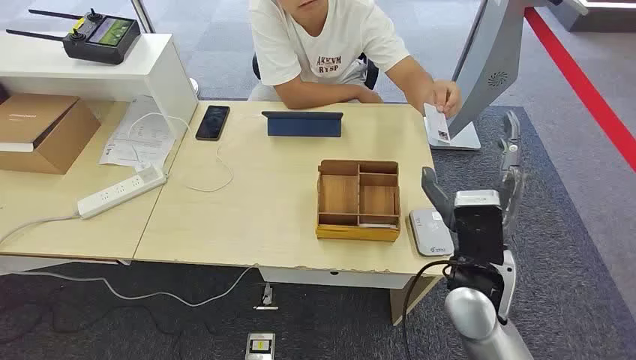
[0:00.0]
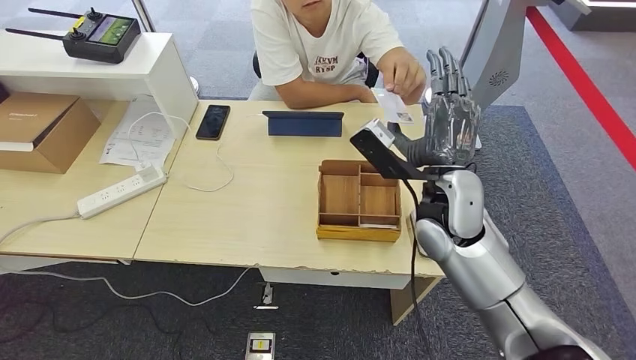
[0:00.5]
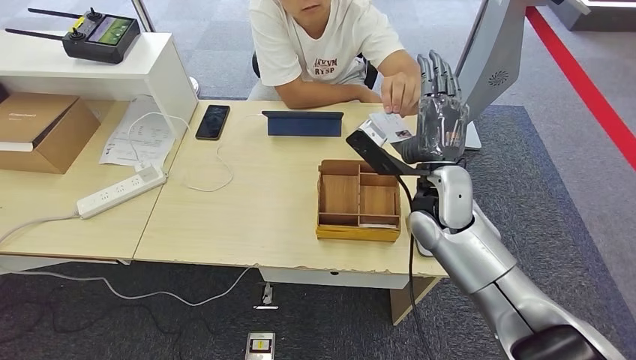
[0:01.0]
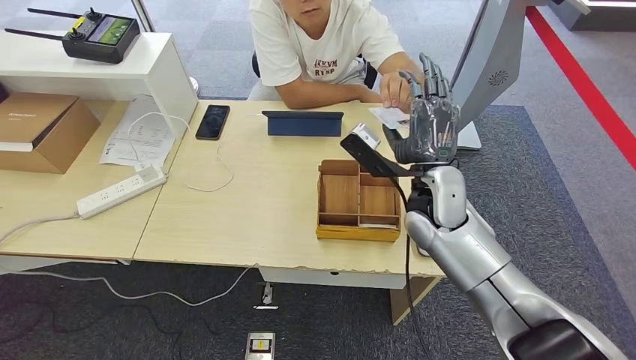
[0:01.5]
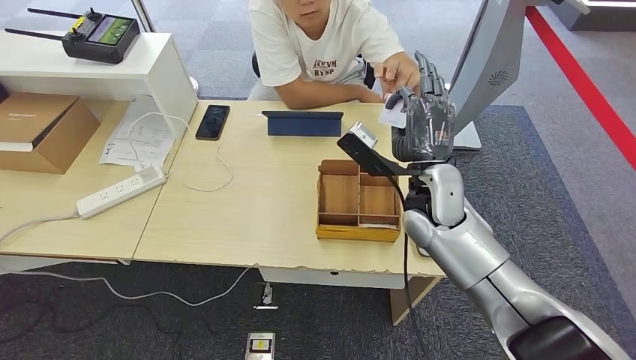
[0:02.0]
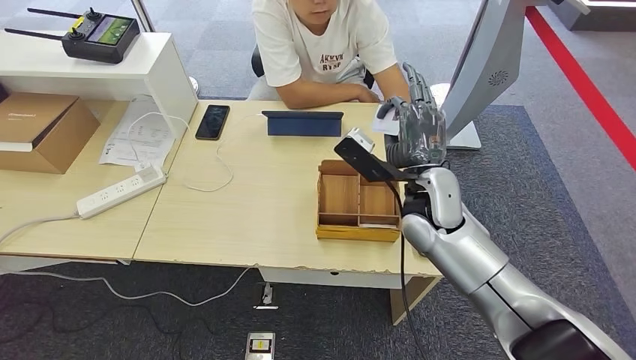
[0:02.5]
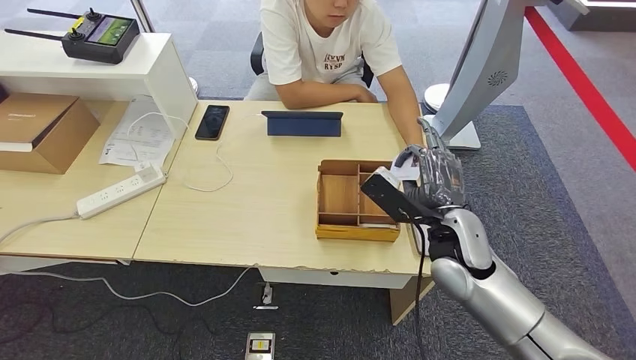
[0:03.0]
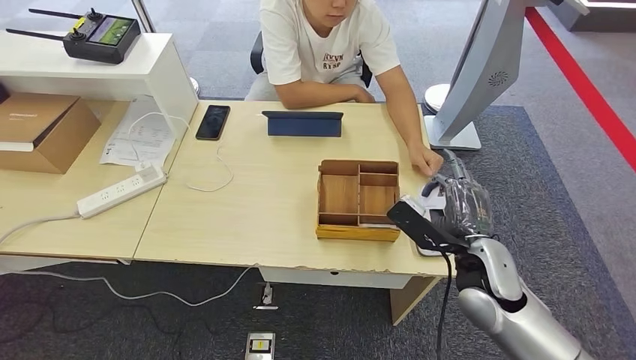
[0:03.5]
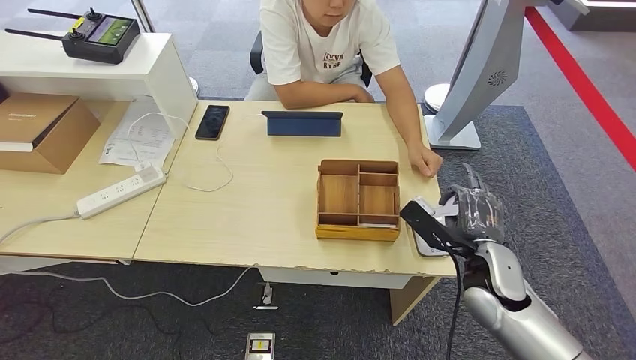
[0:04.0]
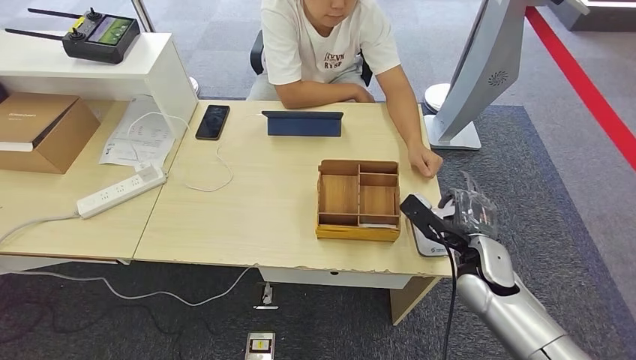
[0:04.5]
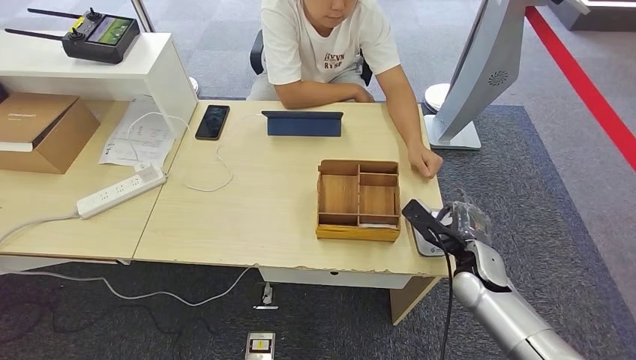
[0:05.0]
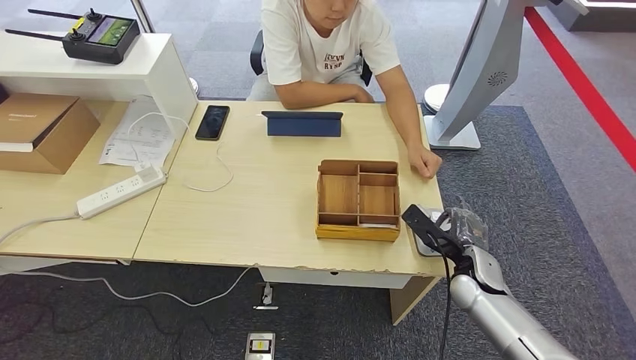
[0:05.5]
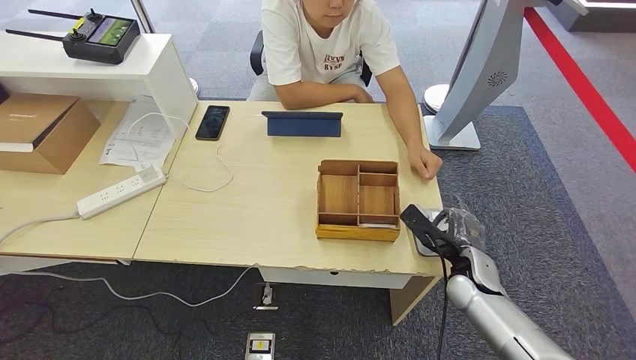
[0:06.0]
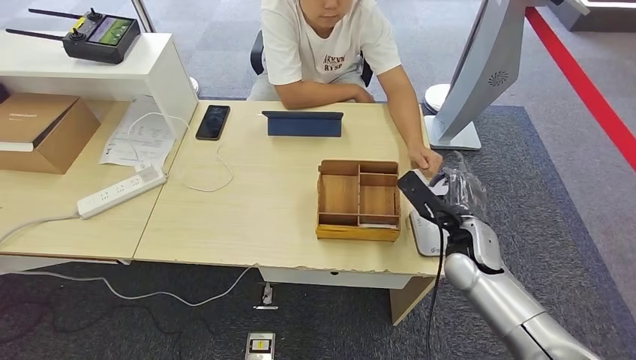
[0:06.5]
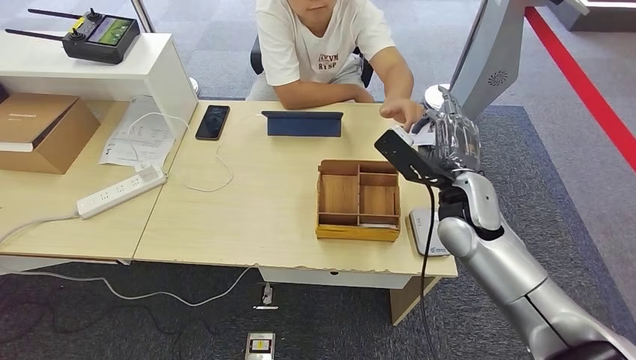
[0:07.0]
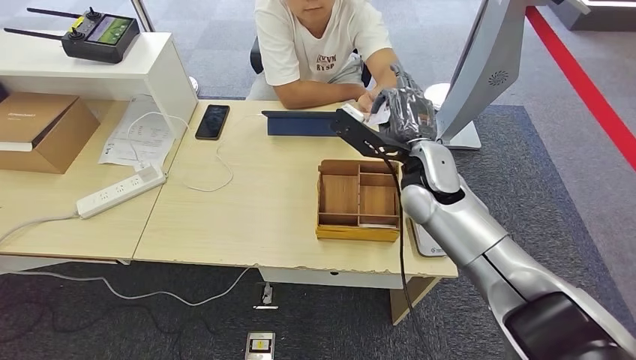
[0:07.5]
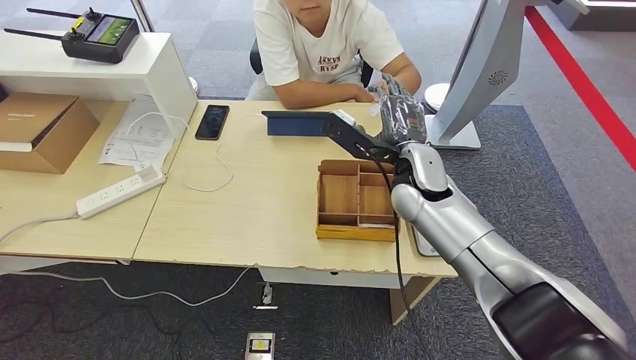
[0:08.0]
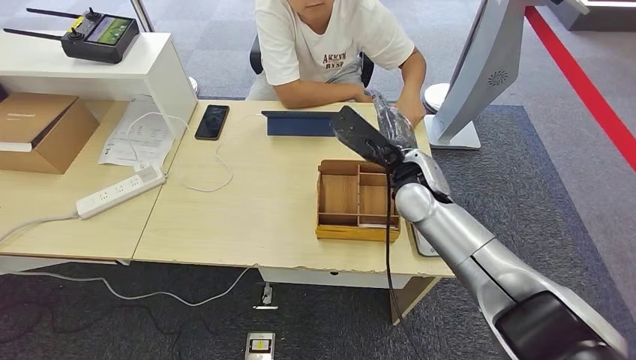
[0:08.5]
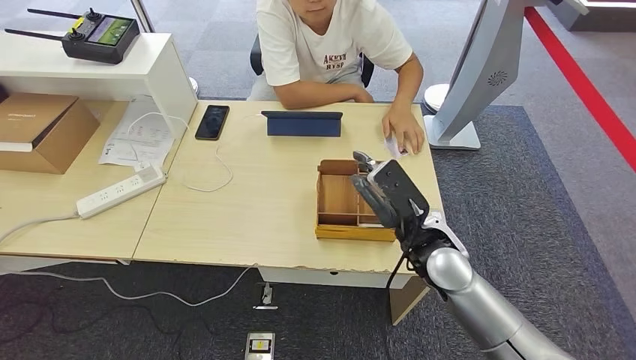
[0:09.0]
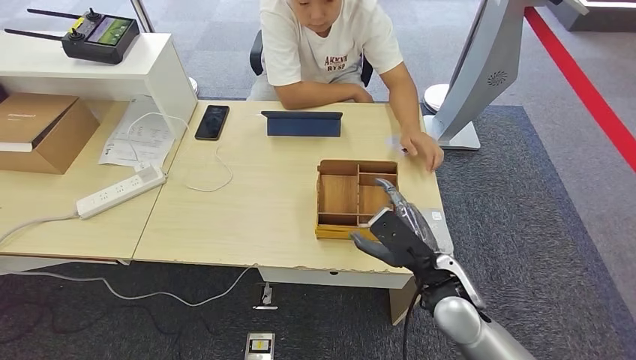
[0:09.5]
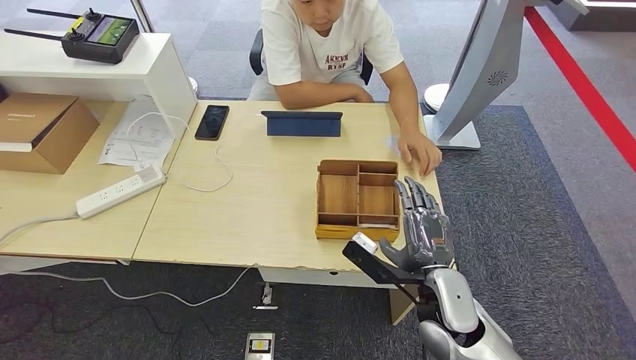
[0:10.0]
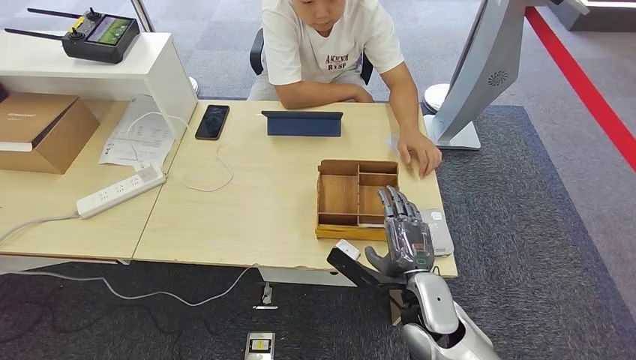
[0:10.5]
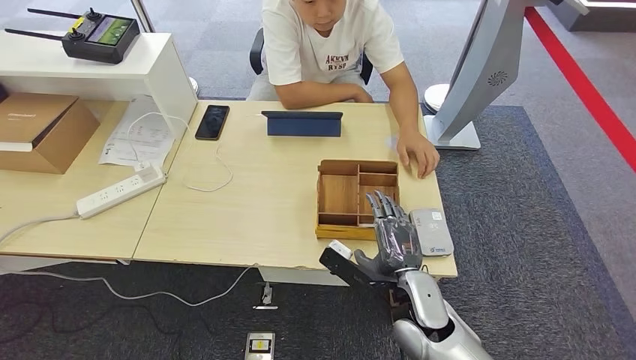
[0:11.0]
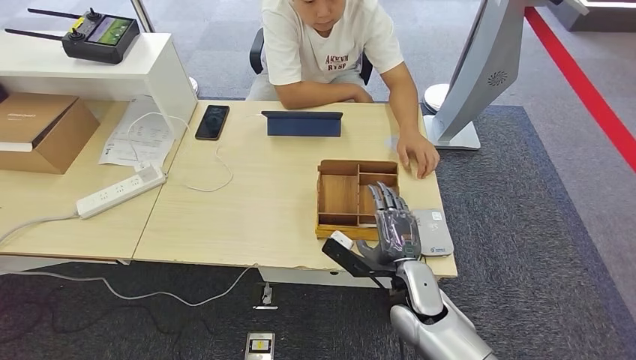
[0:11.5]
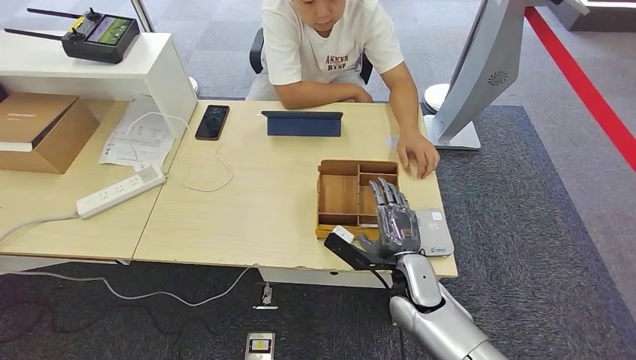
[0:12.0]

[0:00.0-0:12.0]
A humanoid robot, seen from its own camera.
Step, 0:00.0 to 0:02.5: Take the ID card from the person's hand.
Step, 0:03.0 to 0:06.5: Place the ID card on the card reader.
Step, 0:07.5 to 0:09.0: Hand the ID card to the person.
0:02.0 to 0:04.0: The right hand moves to the right, backward and downward, about 20 cm.
0:04.0 to 0:06.0: The right hand is displaced downward by roughly 10 cm.
0:06.0 to 0:08.0: The right hand moves upward, to the left and forward, about 25 cm.
0:08.0 to 0:10.0: The right hand goes approximately 20 cm backward and downward.
0:10.0 to 0:12.0: The right hand shifts by roughly 5 cm.

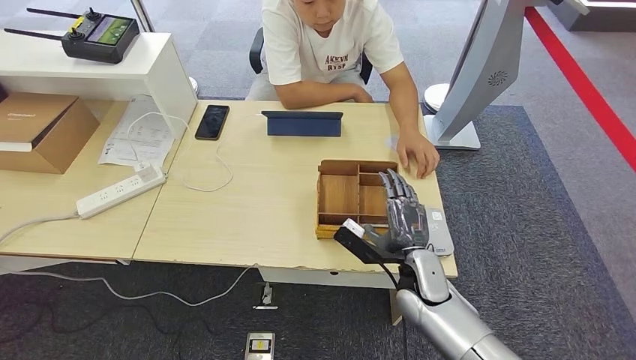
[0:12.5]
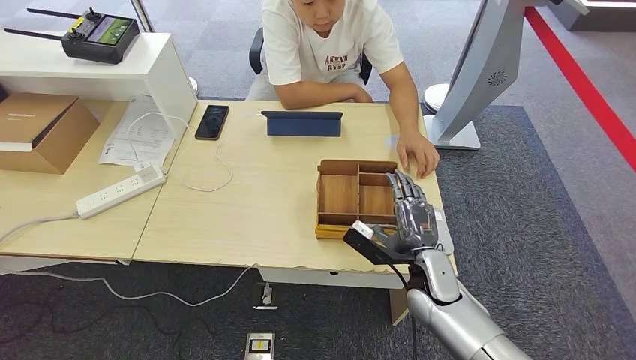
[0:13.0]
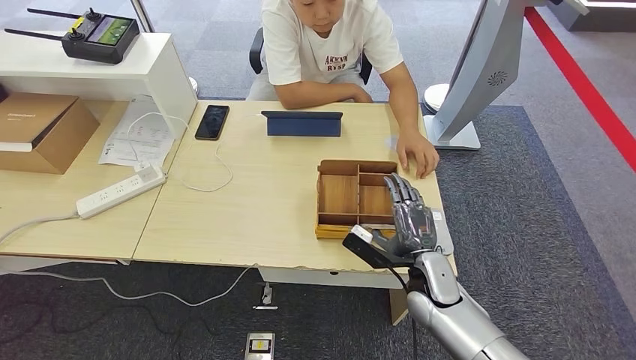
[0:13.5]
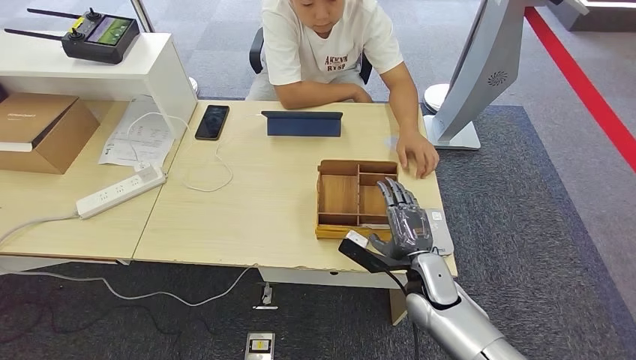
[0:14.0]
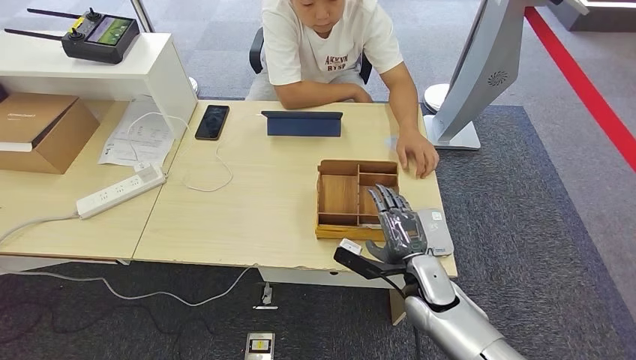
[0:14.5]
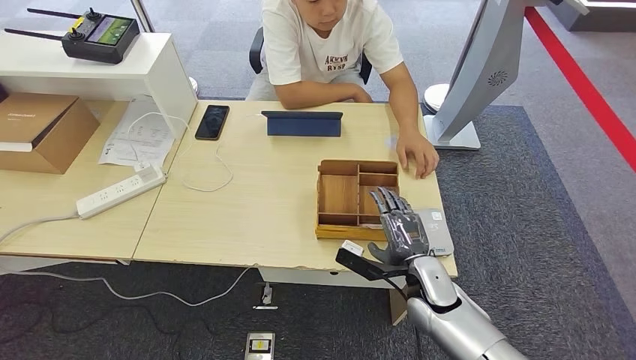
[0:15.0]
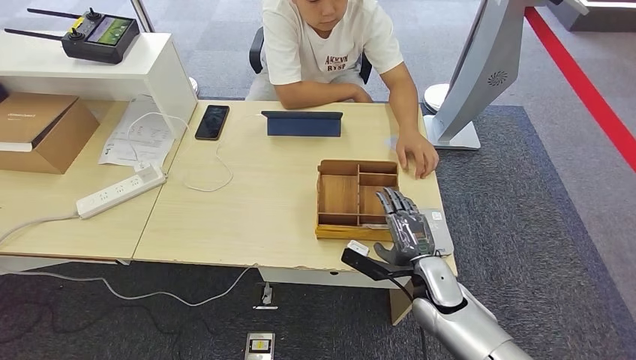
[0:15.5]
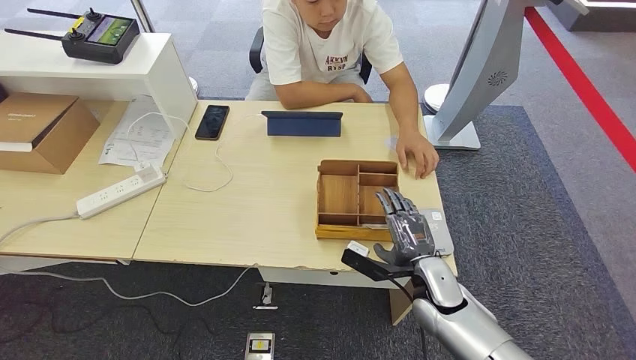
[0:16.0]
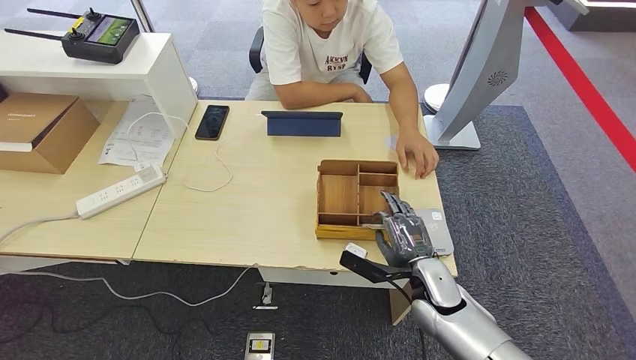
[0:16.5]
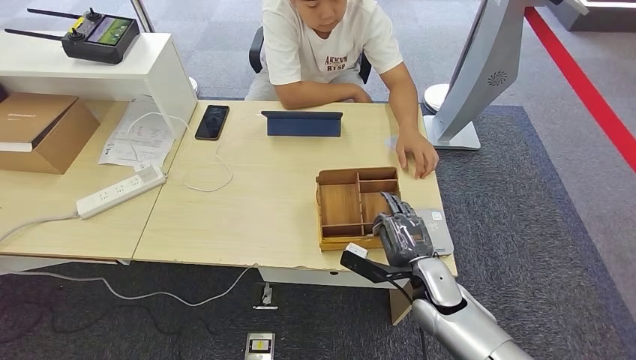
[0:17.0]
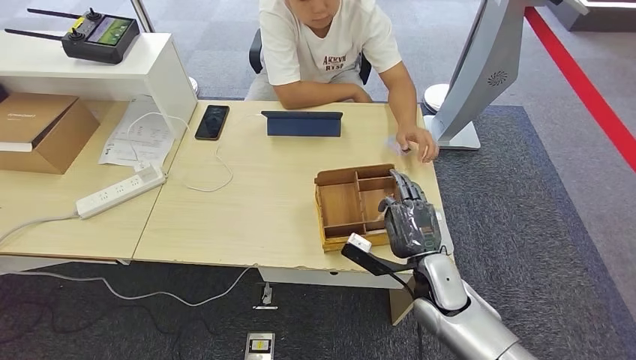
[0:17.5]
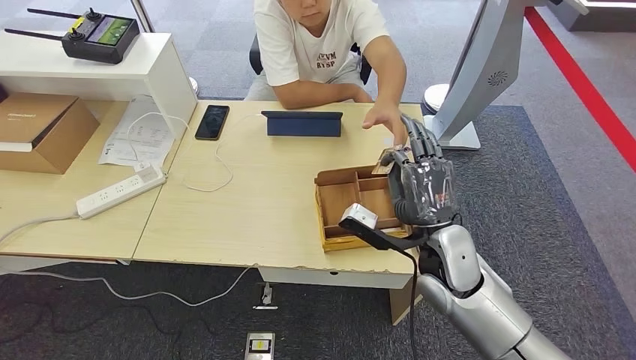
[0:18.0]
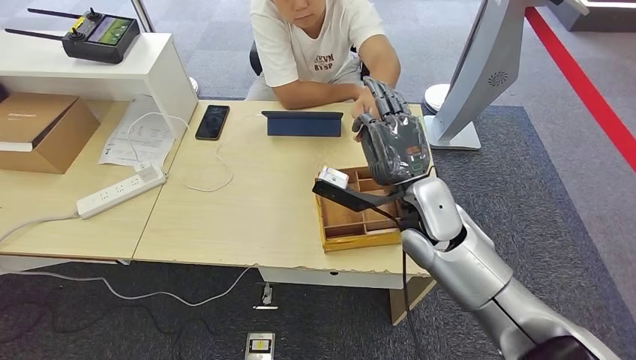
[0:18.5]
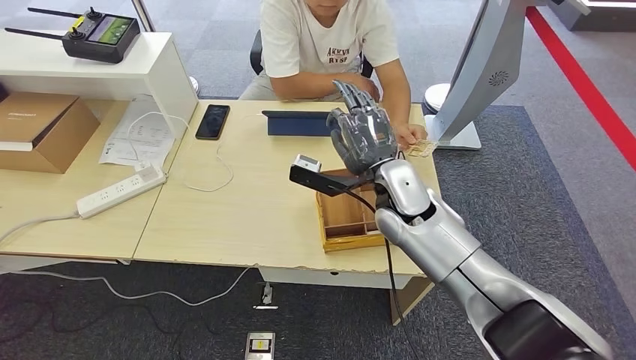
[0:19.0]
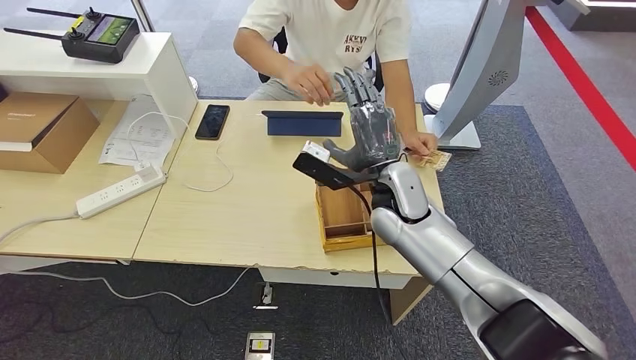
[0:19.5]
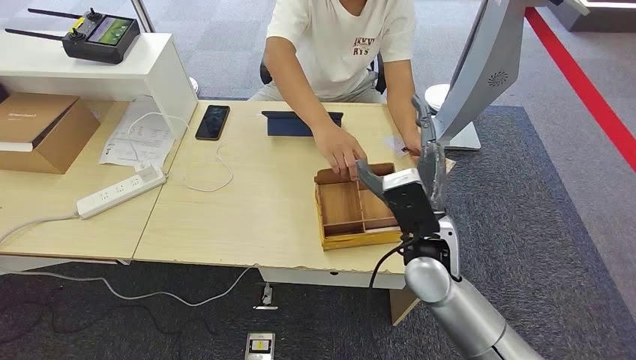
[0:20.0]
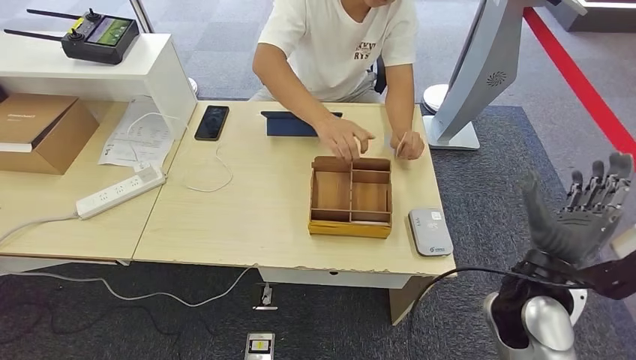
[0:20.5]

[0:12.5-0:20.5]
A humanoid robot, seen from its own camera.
Step, 0:16.5 to 0:18.0: Pick up the room key from the key card box.
Step, 0:18.5 to 0:20.0: Hand the room key to the person.
0:12.5 to 0:16.5: The hands make only small movements.
0:16.5 to 0:18.5: The right hand goes roughly 20 cm upward and forward.
